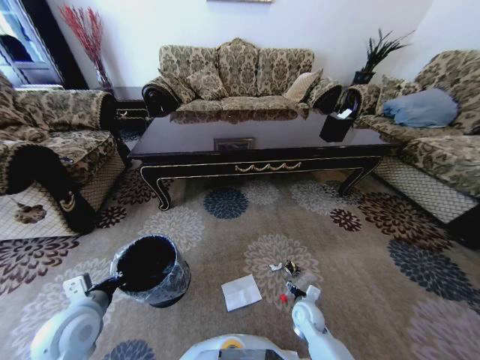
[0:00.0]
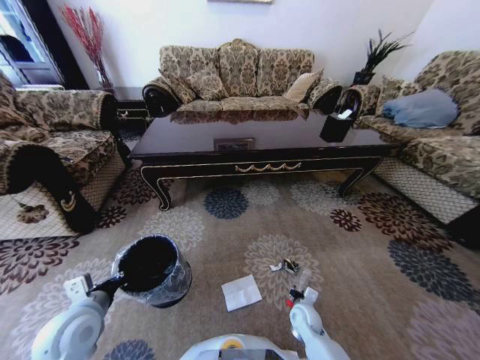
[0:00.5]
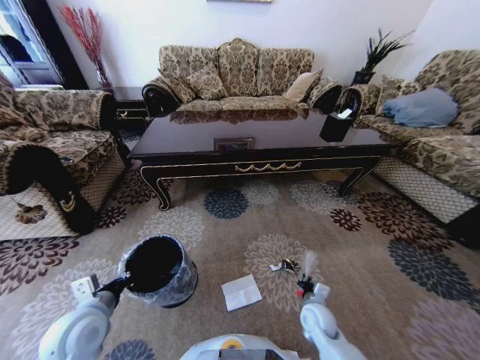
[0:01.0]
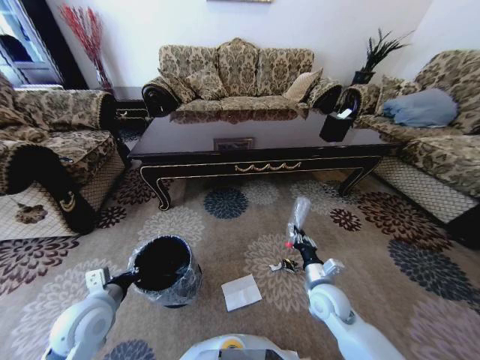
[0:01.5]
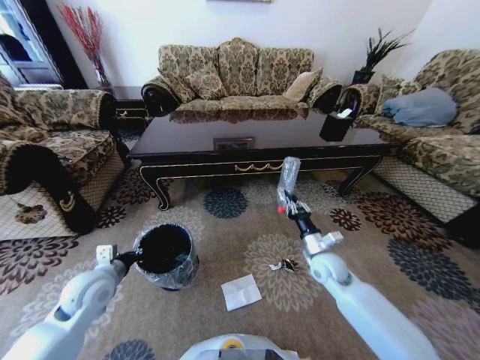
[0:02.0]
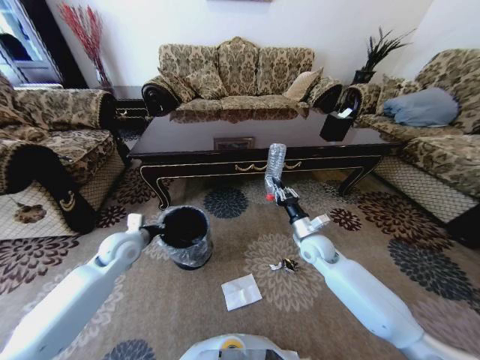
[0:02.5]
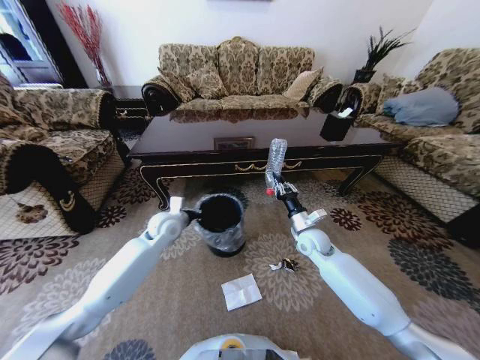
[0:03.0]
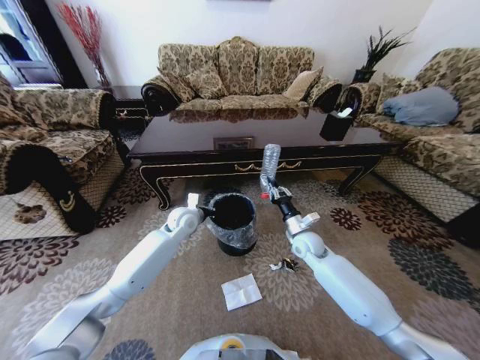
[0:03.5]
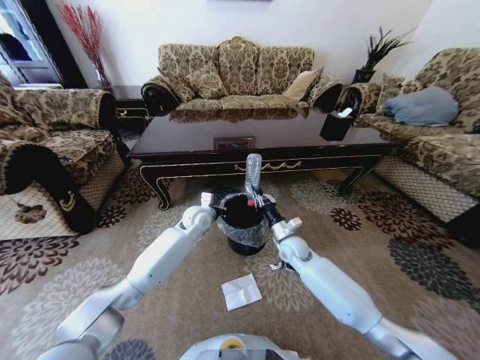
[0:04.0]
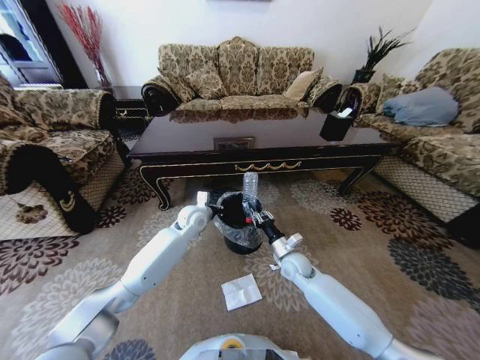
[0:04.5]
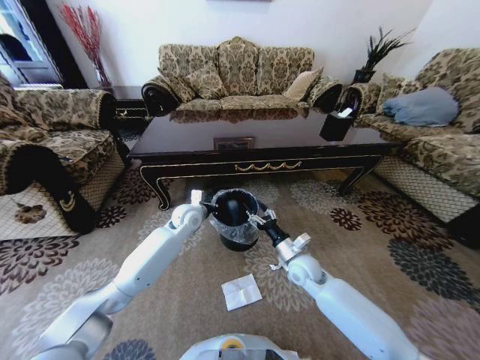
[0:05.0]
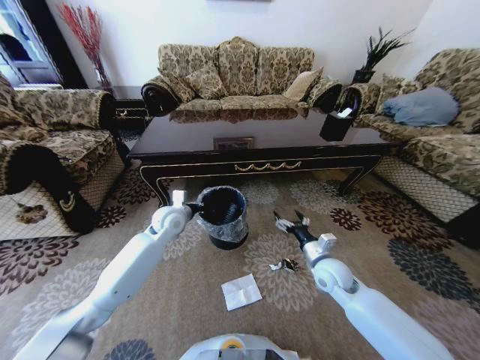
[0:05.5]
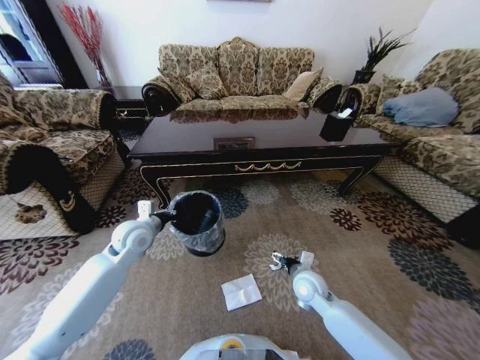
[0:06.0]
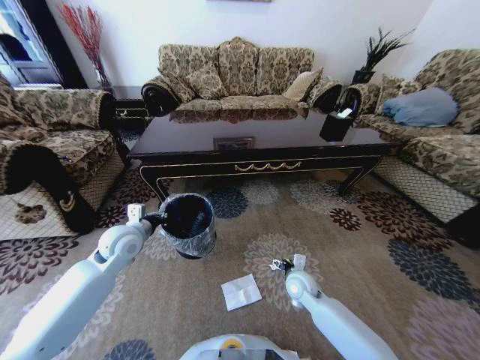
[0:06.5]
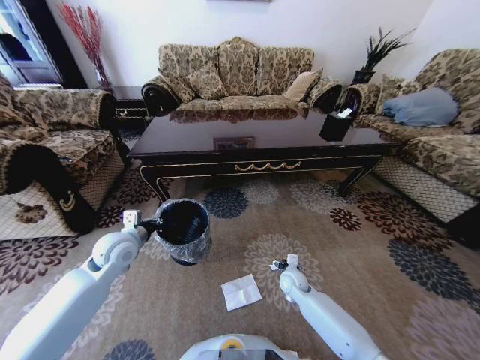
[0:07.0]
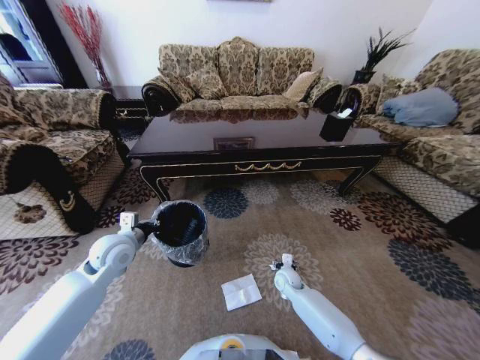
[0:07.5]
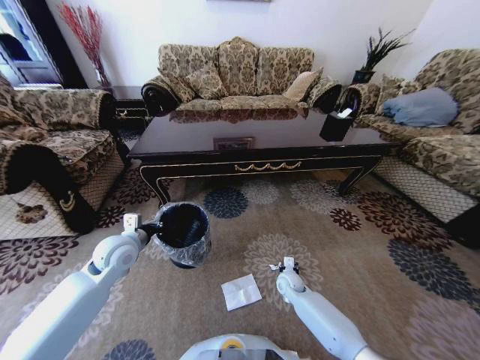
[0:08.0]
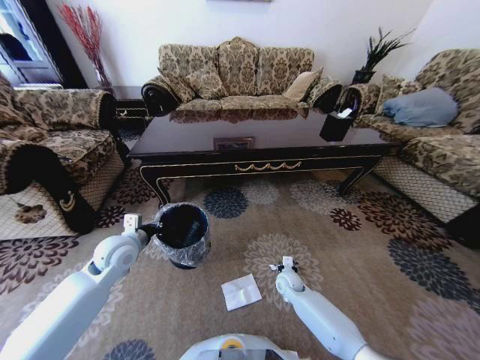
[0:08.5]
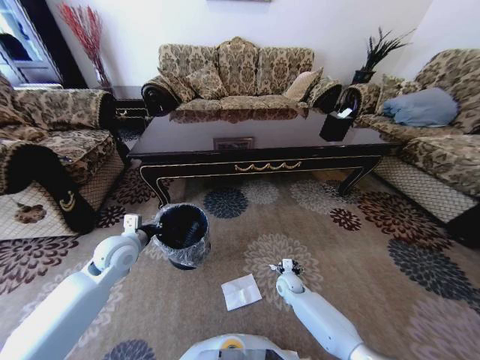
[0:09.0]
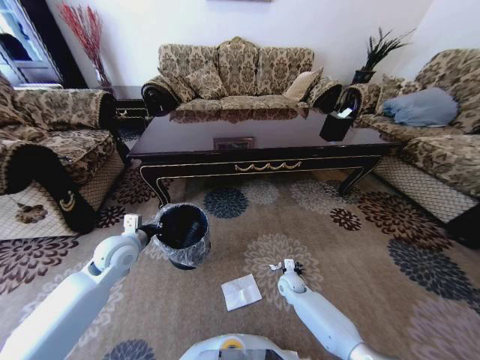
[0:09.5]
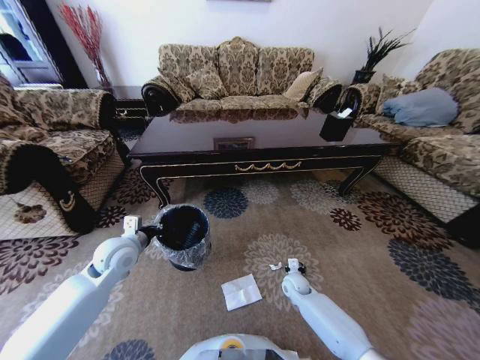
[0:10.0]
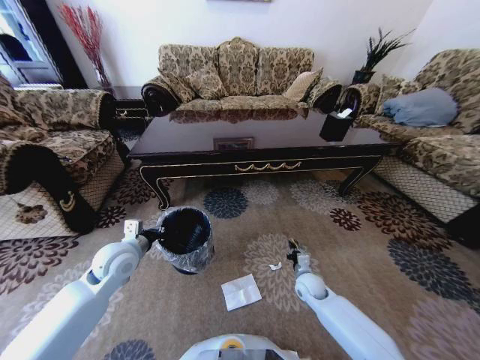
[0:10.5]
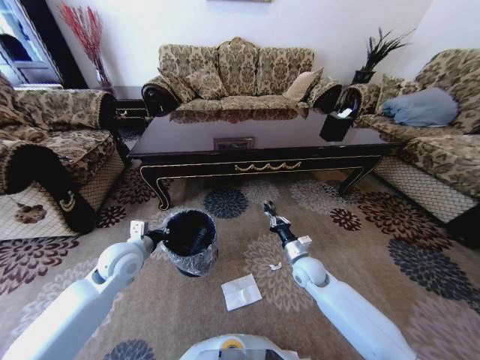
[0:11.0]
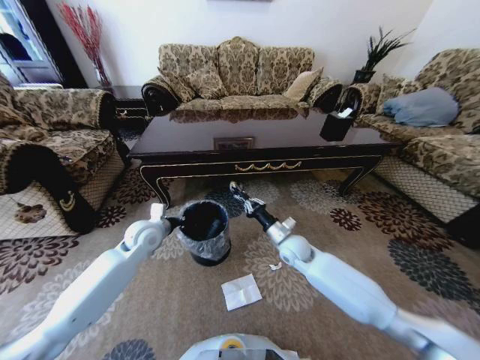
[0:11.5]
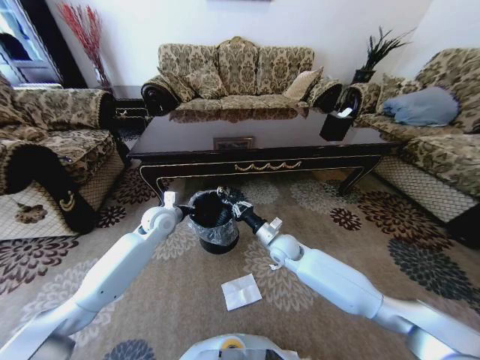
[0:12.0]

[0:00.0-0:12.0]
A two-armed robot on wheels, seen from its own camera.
Task of the whole recording: Move to the front of the table and pick up the trash from the floor, then place it into the trash bin.
0:00.0 to 0:02.0: The right gripper heads upward and forward, covering approximately 20 cm, and closes its fingers; the left gripper is displaced forward by about 10 cm.
0:02.0 to 0:04.0: The right gripper travels forward and to the left by roughly 10 cm; the left gripper shifts some 30 cm to the right and forward.
0:04.0 to 0:06.0: The left gripper shifts about 20 cm to the left and backward. Meanwhile the right gripper heads backward, covering about 10 cm, and opens.
0:06.0 to 0:08.0: The left gripper changes place by some 5 cm, while the right gripper is displaced downward and forward by about 15 cm, and closes.
0:08.0 to 0:10.0: The right gripper opens, then closes once more.
0:10.0 to 0:12.0: The left gripper moves forward and to the right, approximately 15 cm, while the right gripper is displaced upward and to the left by some 20 cm.

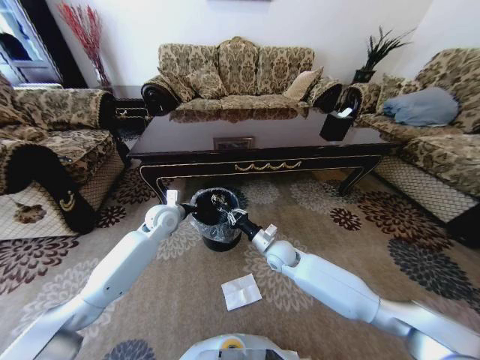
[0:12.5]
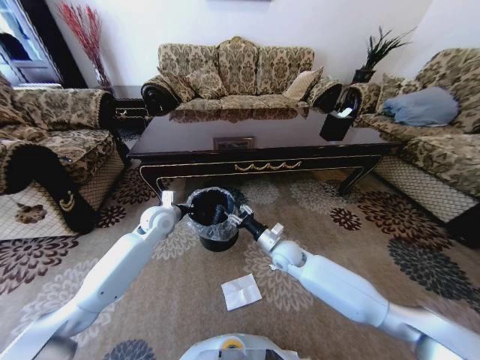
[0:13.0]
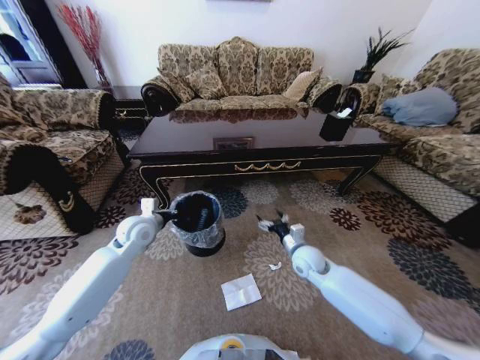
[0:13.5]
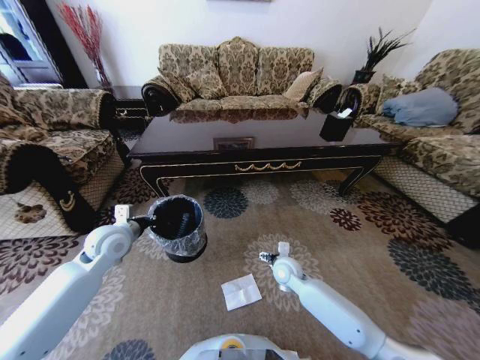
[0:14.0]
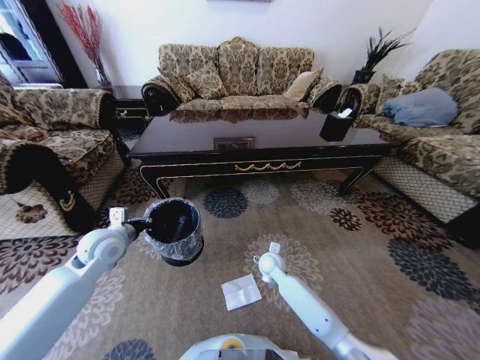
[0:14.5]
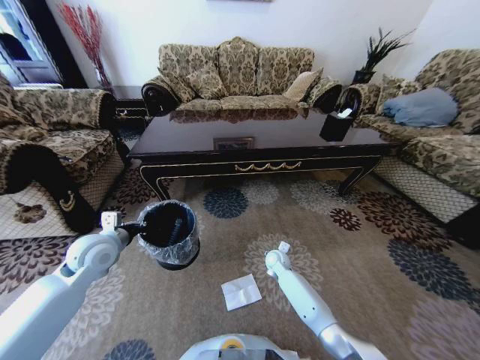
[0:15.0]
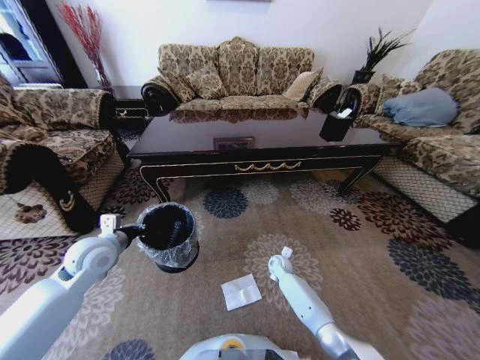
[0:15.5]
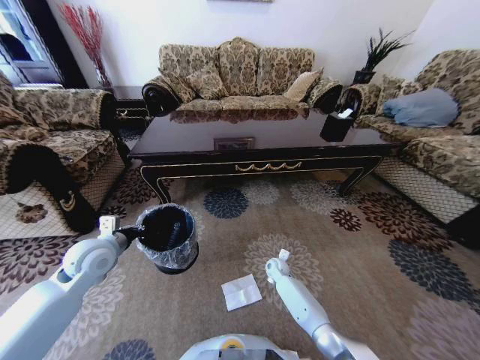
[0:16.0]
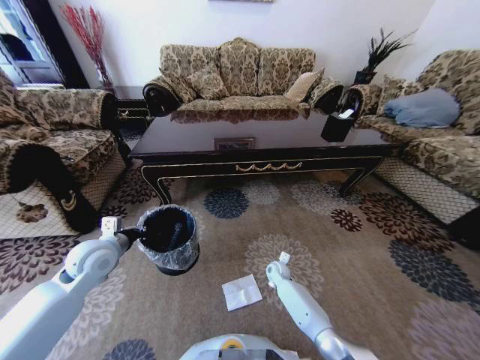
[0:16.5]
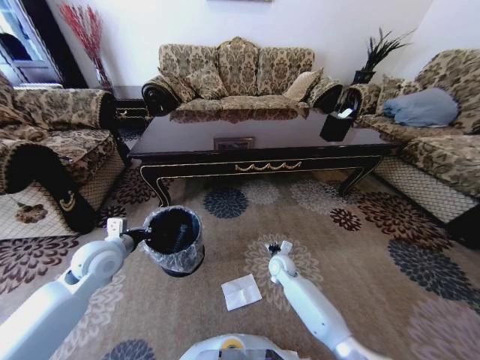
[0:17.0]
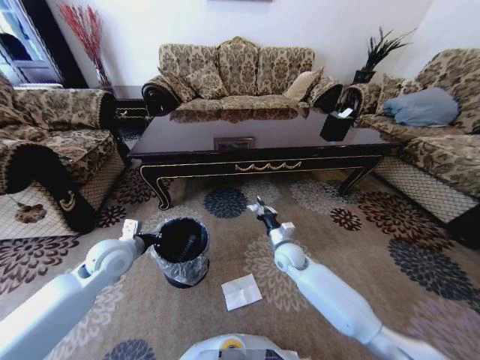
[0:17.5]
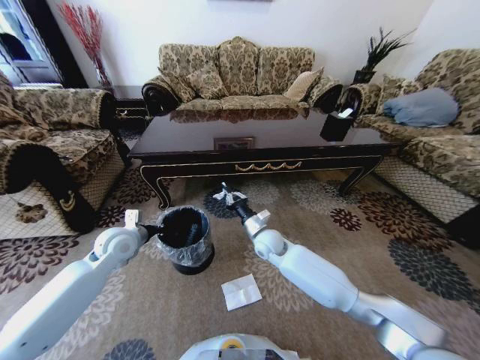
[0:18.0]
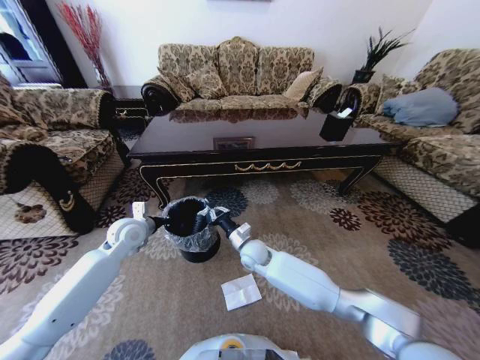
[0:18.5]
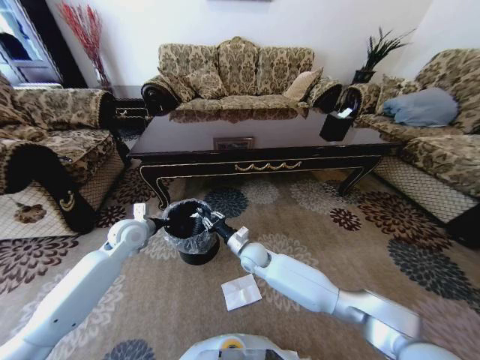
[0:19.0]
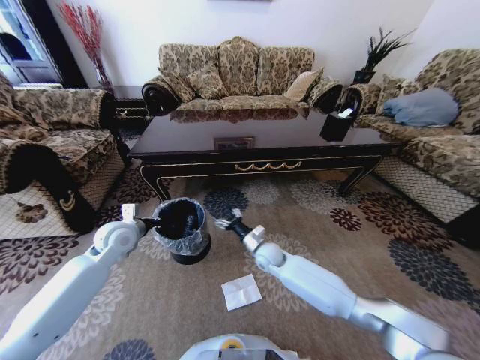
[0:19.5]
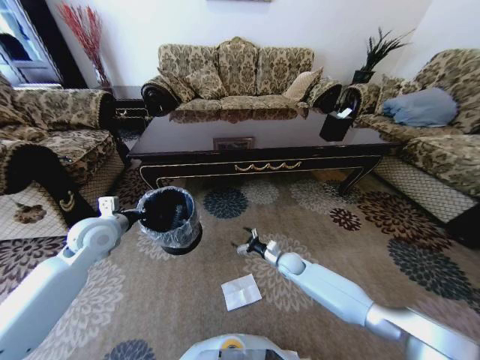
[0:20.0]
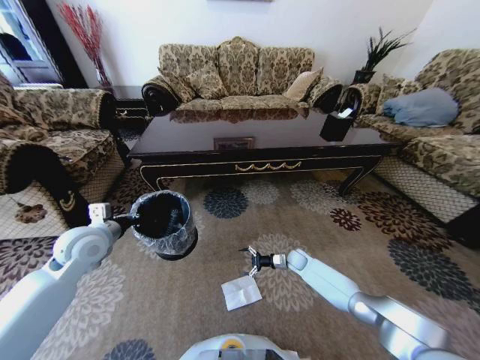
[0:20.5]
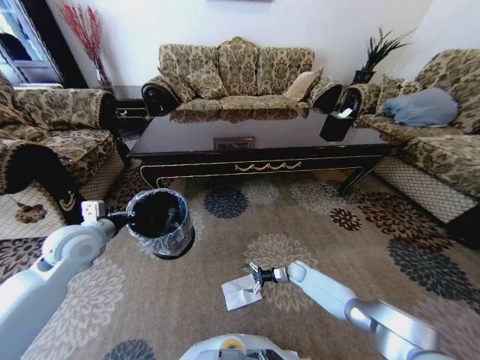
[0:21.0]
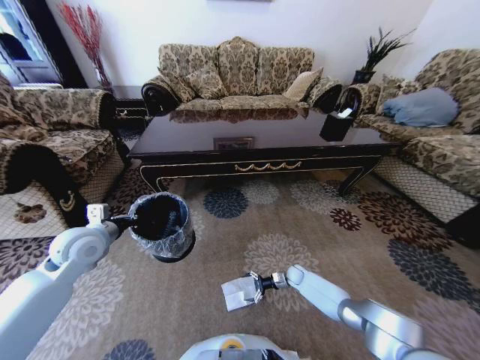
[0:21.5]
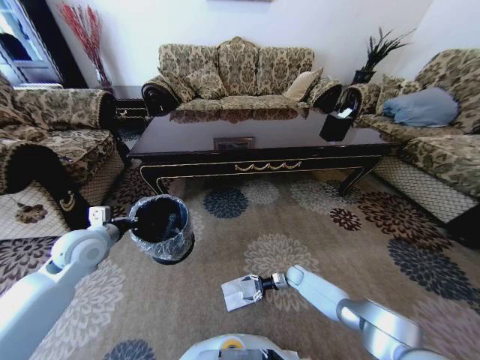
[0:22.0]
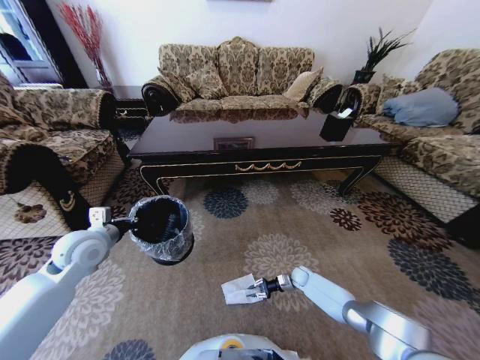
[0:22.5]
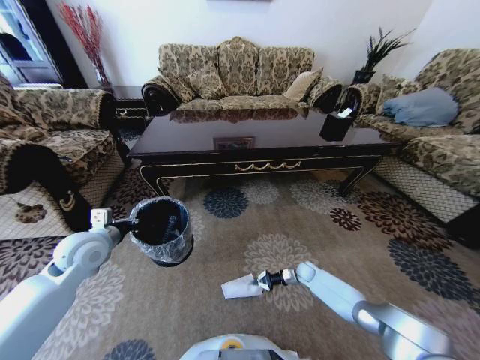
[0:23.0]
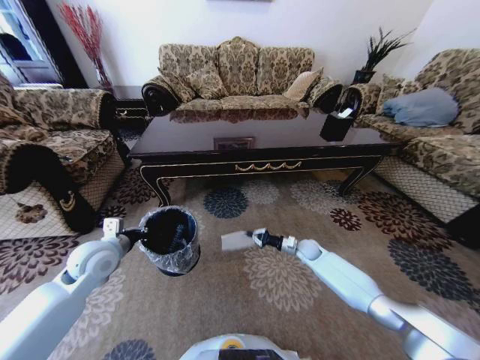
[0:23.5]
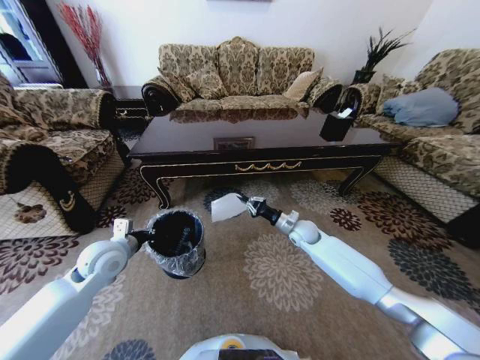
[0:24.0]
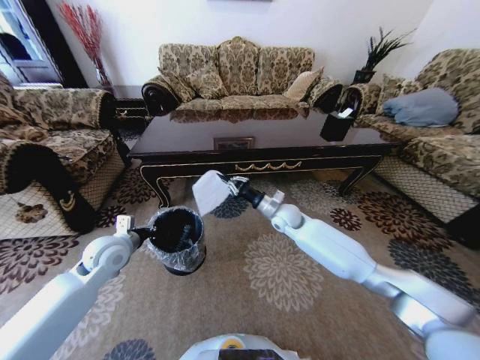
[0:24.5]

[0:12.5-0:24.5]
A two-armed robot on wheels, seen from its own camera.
Task of the whole recording: Move to the front of the table and pick up the trash from the floor, then place it into the trash bin.
0:12.5 to 0:14.5: The left gripper heads to the left and backward, covering some 15 cm. The right gripper goes some 5 cm downward, travels to the right and back again, roughly 10 cm each way, and opens its fingers.
0:14.5 to 0:16.5: The right gripper shifts about 15 cm downward and to the right, and closes up.
0:16.5 to 0:18.5: The left gripper shifts about 10 cm forward. Meanwhile the right gripper shifts roughly 20 cm upward and to the left.
0:18.5 to 0:20.5: The left gripper goes approximately 10 cm backward and upward, while the right gripper shifts about 25 cm to the right and downward, and opens up.
0:20.5 to 0:22.5: The right gripper is displaced downward by roughly 5 cm, and closes its fingers.
0:22.5 to 0:24.5: The left gripper ends up roughly 5 cm from where it was. Meanwhile the right gripper moves upward and to the left, approximately 35 cm.

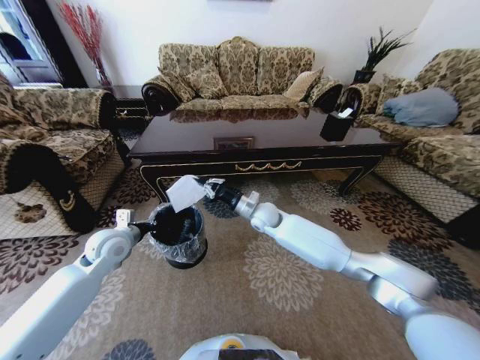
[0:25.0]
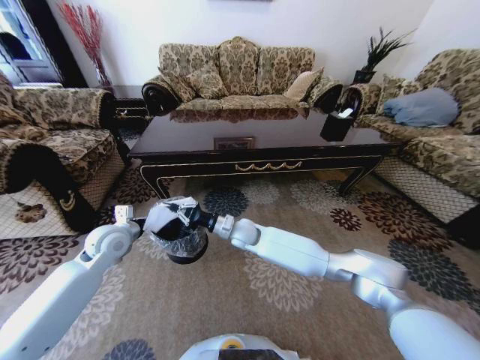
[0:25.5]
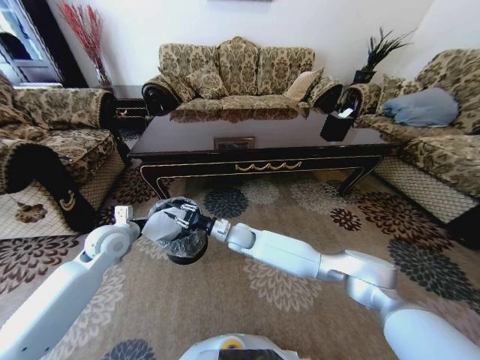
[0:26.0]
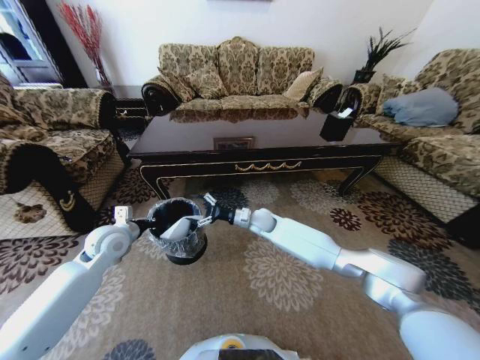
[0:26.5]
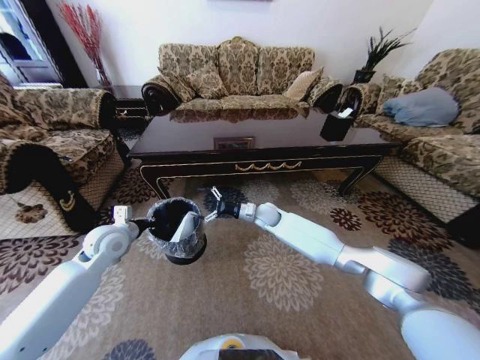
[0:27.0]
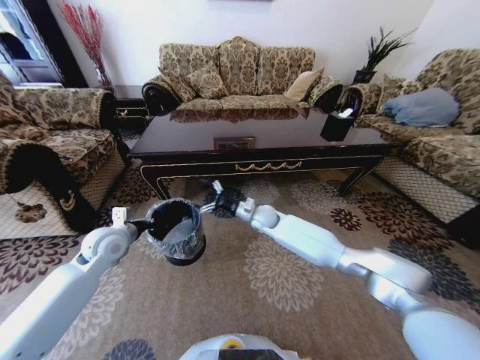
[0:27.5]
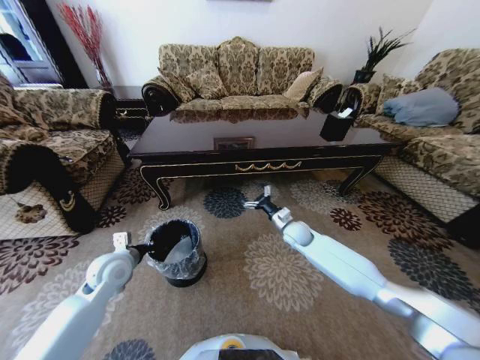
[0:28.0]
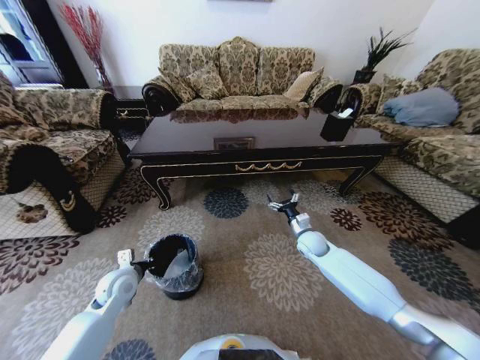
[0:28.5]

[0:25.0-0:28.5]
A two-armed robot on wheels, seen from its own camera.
Task of the whole recording: Move to the front of the table and pick up the trash from the floor, then place it into the trash bin.
0:25.0 to 0:27.0: The right gripper moves some 10 cm to the left and comes back, and opens its fingers.
0:27.0 to 0:28.5: The right gripper moves to the right and backward, about 20 cm; the left gripper shifts roughly 15 cm downward and backward.
